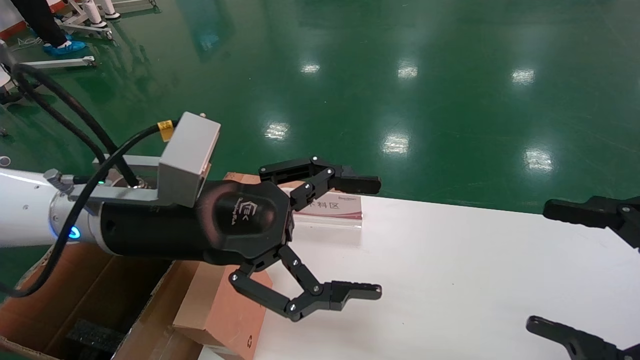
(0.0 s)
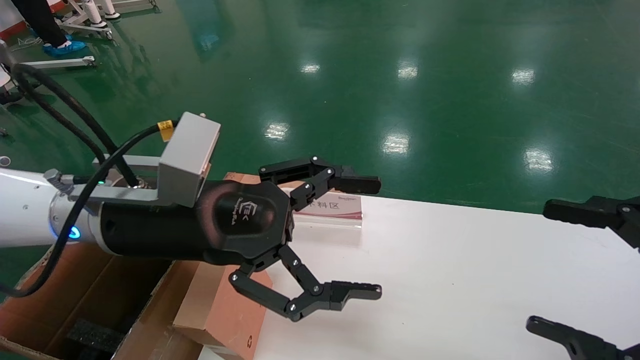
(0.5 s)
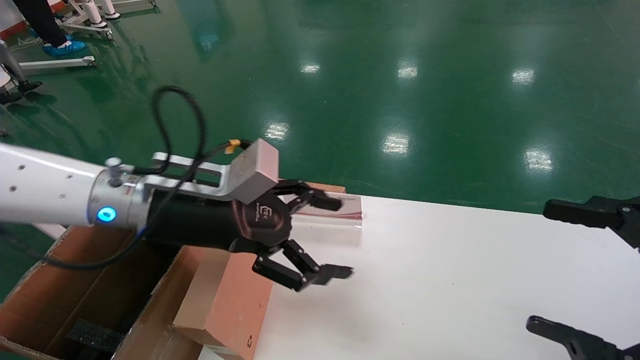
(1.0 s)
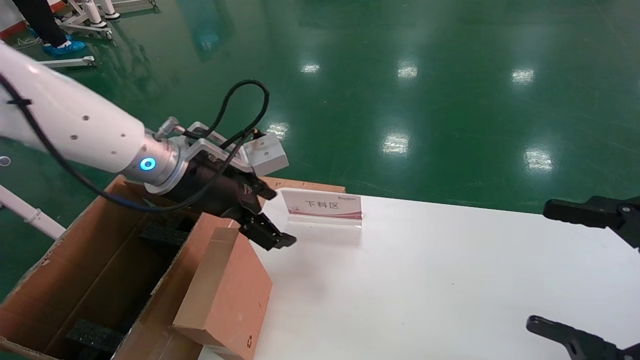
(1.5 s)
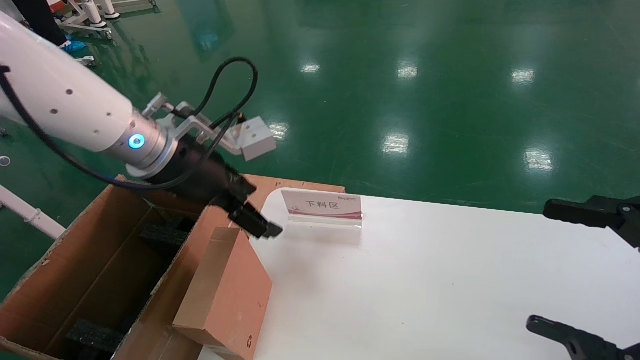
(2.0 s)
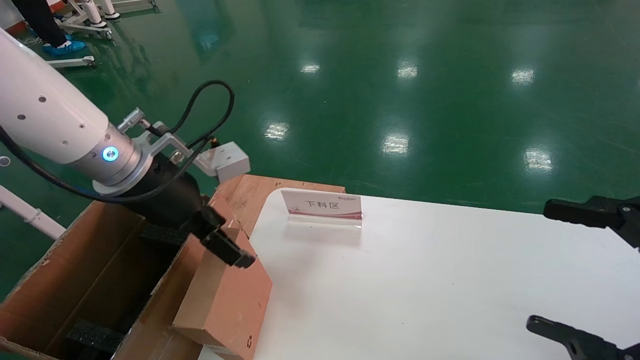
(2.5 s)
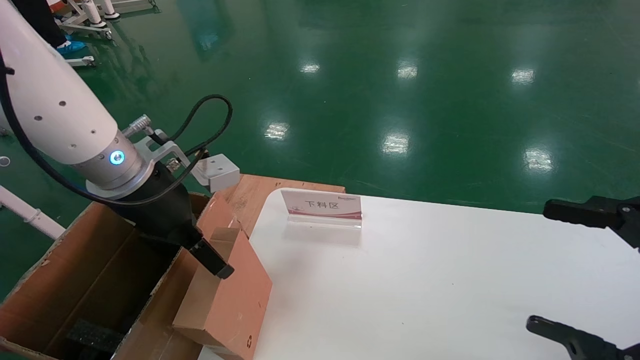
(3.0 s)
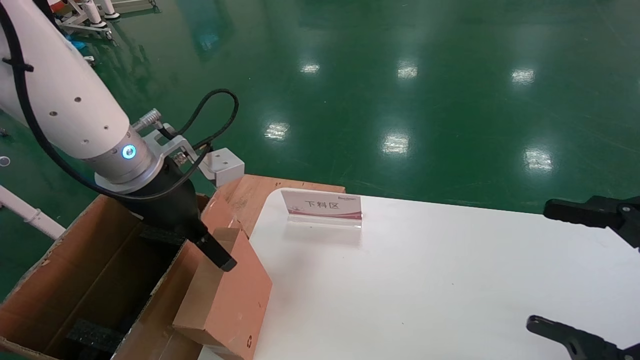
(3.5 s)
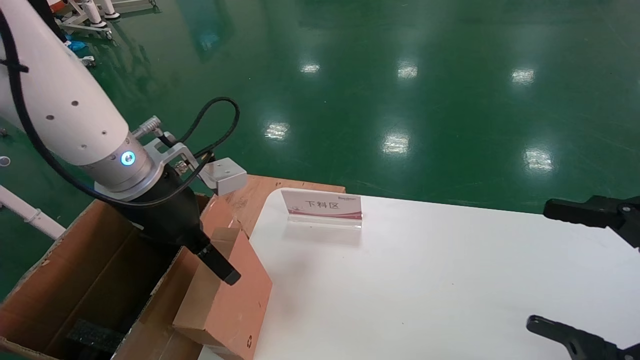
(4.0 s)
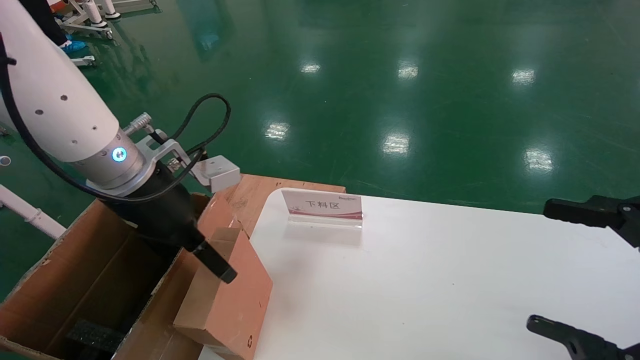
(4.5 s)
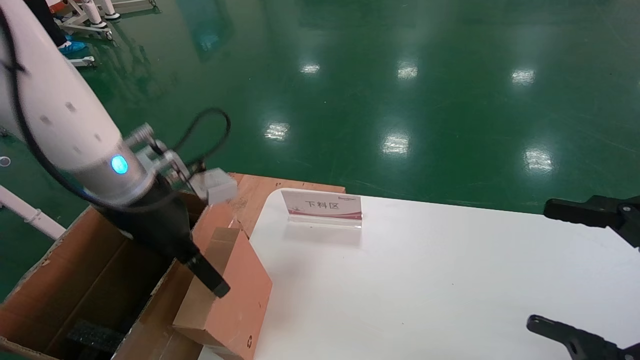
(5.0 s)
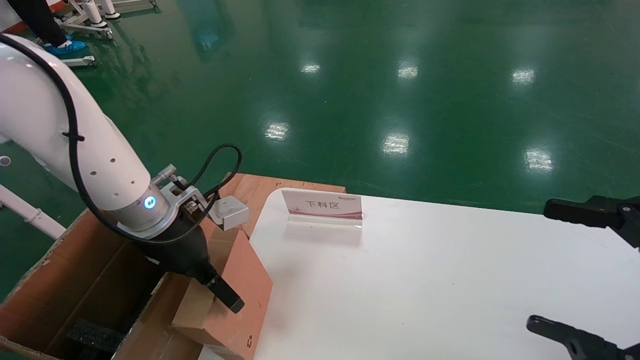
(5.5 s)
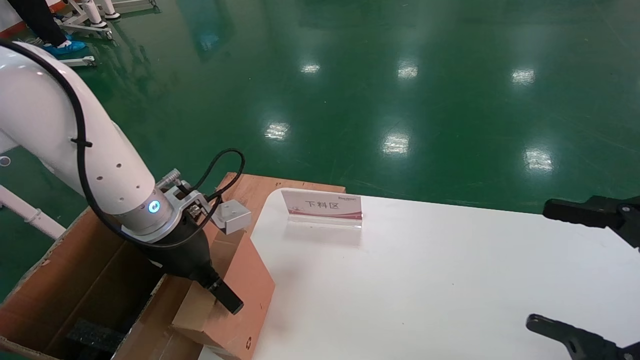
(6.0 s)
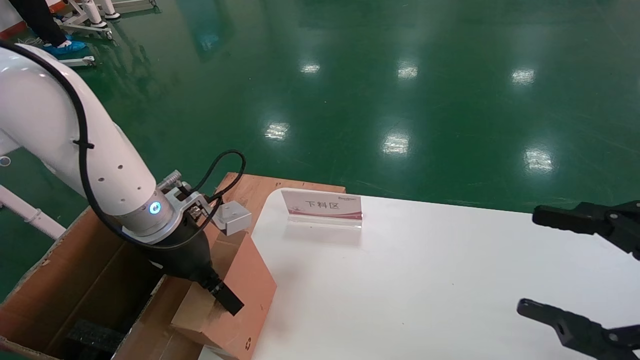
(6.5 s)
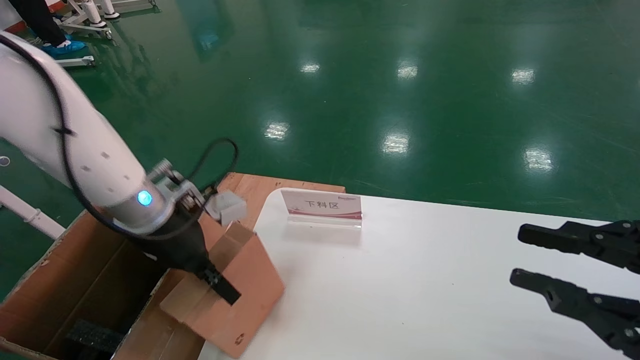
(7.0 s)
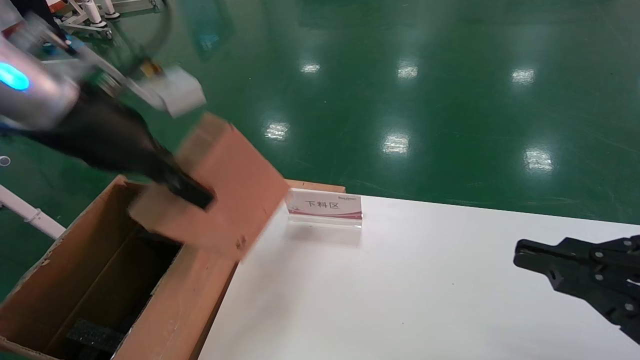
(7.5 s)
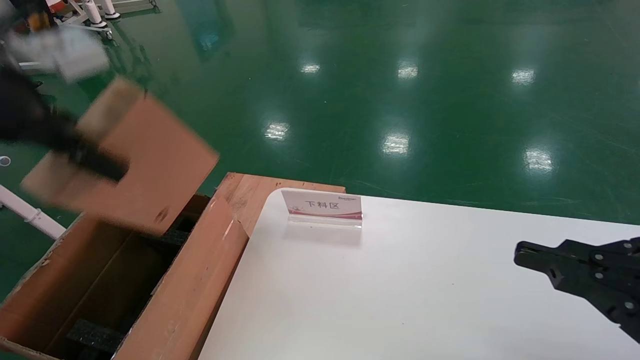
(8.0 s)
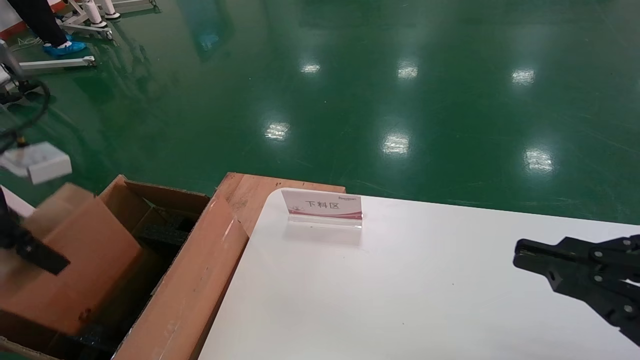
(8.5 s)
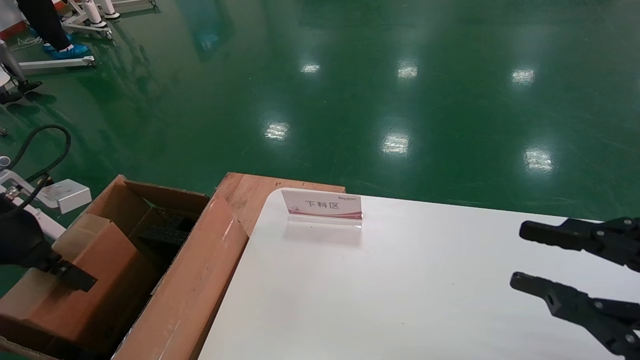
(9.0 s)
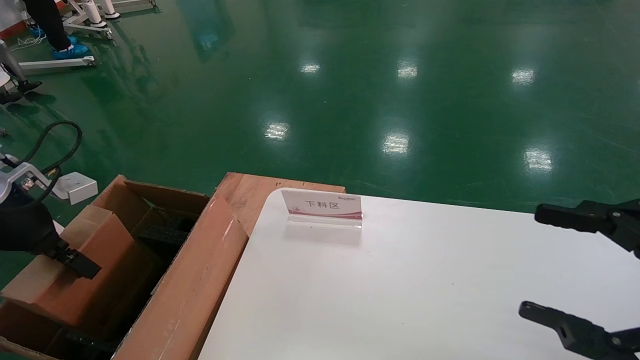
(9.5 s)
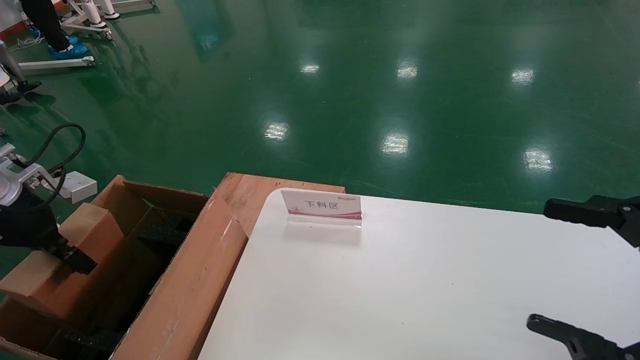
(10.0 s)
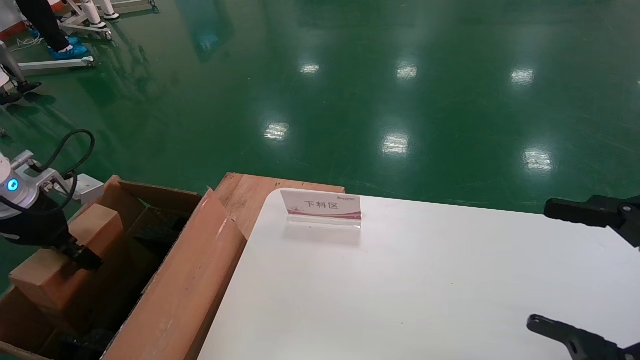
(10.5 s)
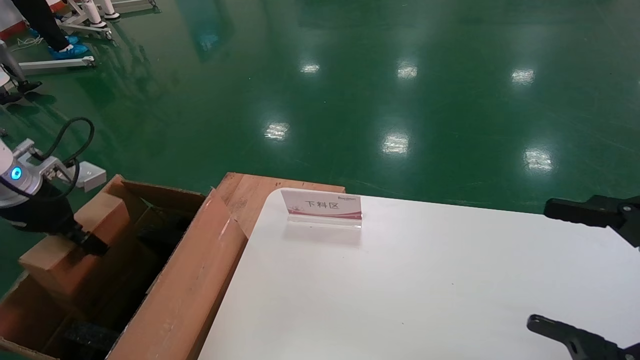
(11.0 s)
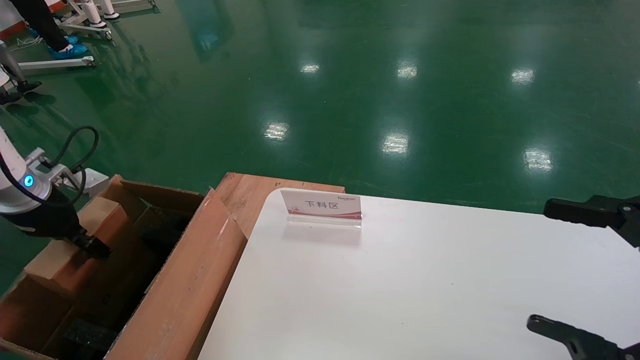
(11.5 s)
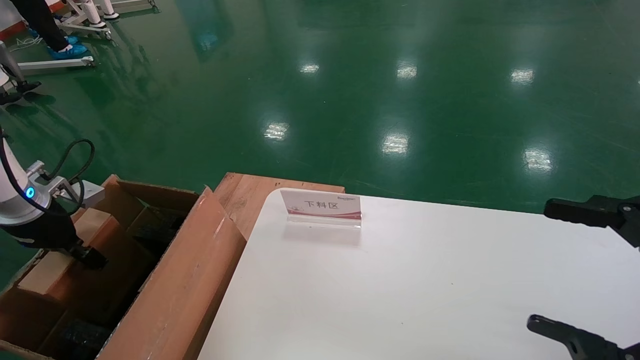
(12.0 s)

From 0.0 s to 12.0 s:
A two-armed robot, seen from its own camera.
Task of the whole recording: pick up the small cardboard box and load it into the large cardboard box.
Step, from 1.0 s to 7.0 s: Pick up the mouse and power cord box.
From 0.0 s to 2.0 s: The left gripper is displaced forward by approximately 10 cm.
From 4.0 s to 6.0 s: The left gripper travels downward by some 5 cm.
From 6.0 s to 8.0 s: The right gripper closes up; the left gripper moves upward, backward and to the left, about 25 cm, and closes its fingers.
From 8.0 s to 10.0 s: The left gripper shifts roughly 20 cm downward, to the left and forward, while the right gripper opens.
From 10.0 s to 12.0 s: The left gripper moves some 5 cm.

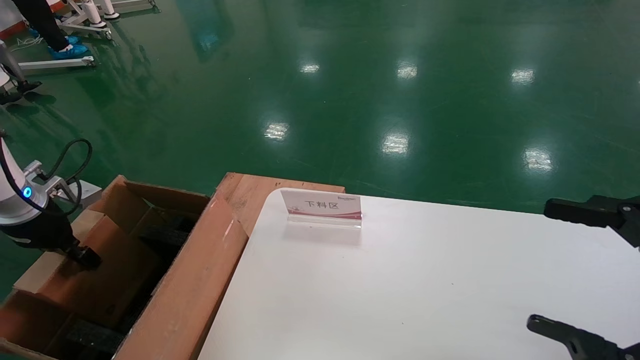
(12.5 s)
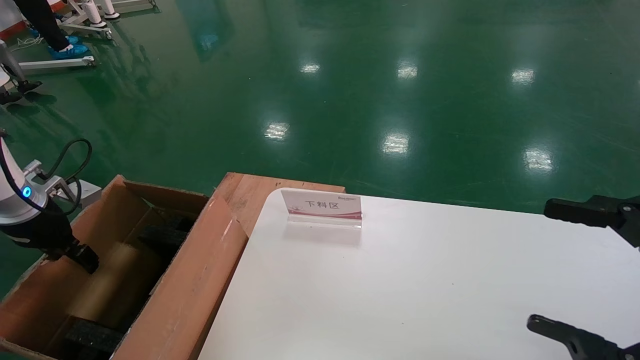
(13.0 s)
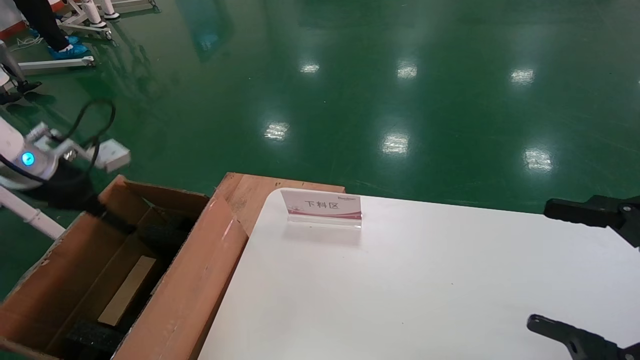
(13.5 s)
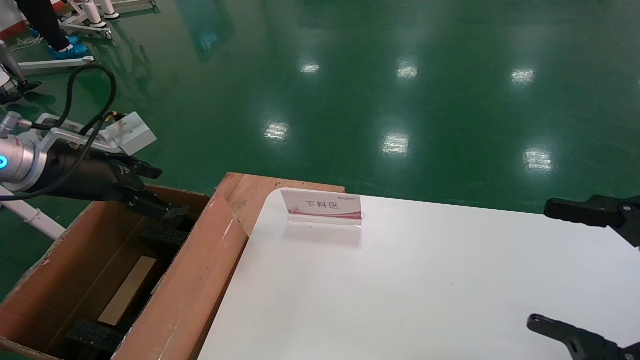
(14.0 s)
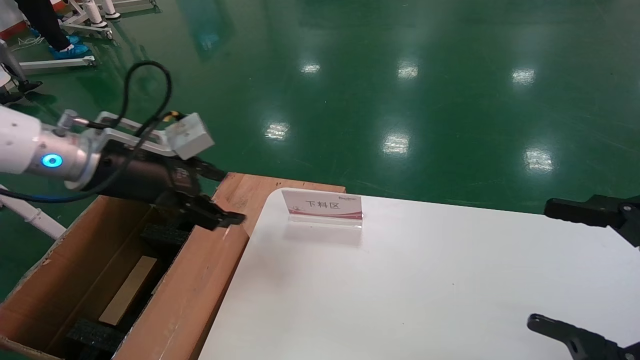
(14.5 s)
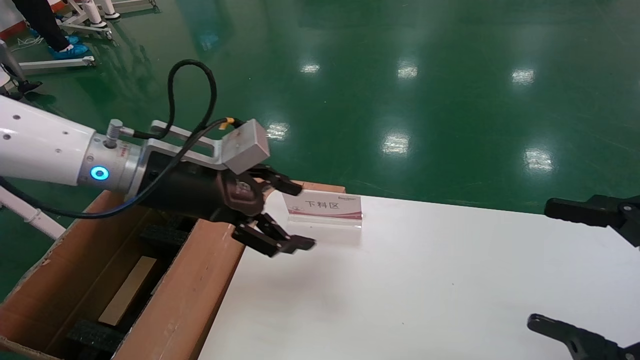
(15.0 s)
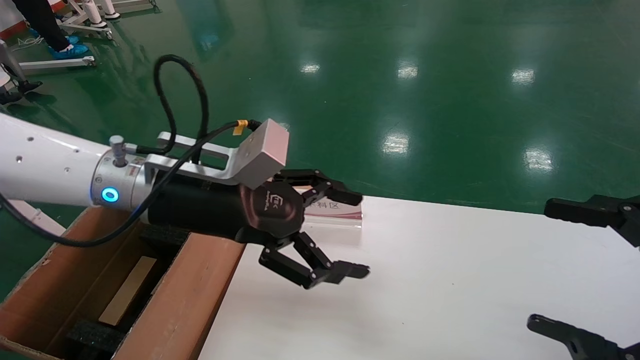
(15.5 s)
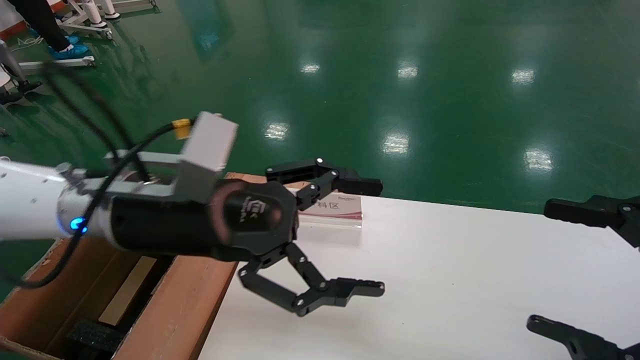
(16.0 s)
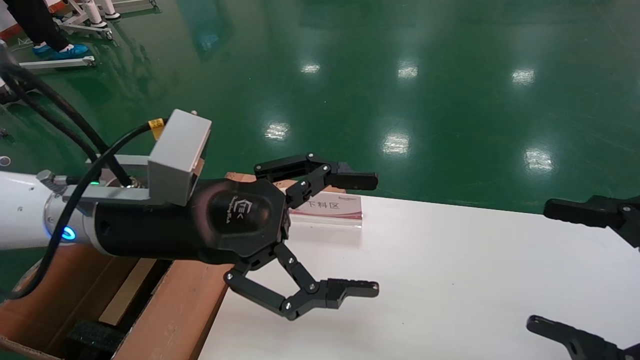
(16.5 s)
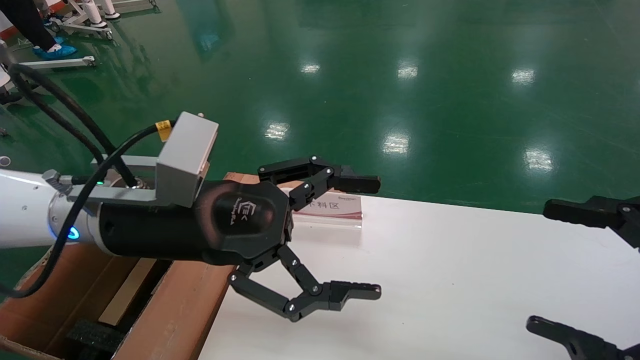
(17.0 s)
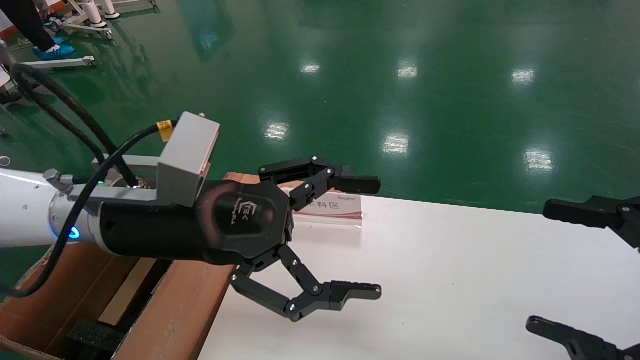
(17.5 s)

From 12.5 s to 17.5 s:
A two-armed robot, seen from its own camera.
Task of the whole recording: pick up the small cardboard box and load it into the large cardboard box.
From 12.5 s to 15.0 s: The left gripper heads to the right, covering about 25 cm, and opens up.
From 15.0 s to 17.5 s: The left gripper travels backward by about 5 cm.
